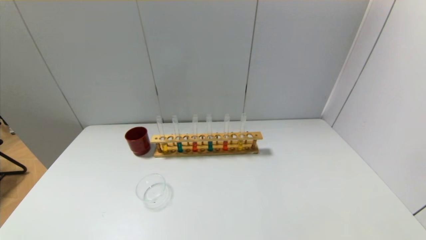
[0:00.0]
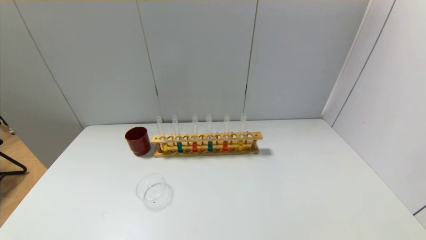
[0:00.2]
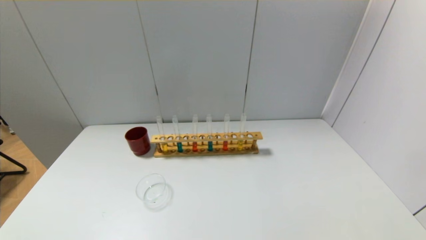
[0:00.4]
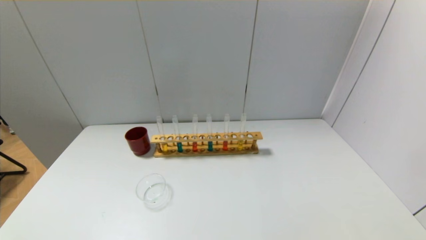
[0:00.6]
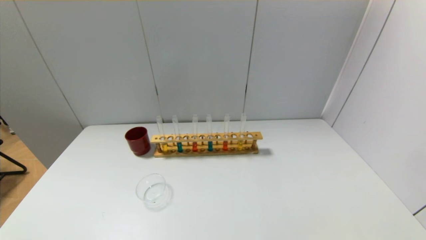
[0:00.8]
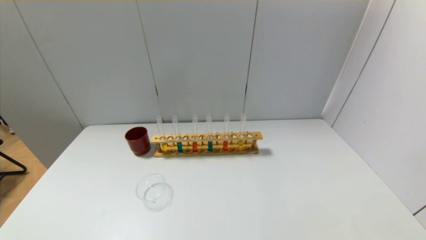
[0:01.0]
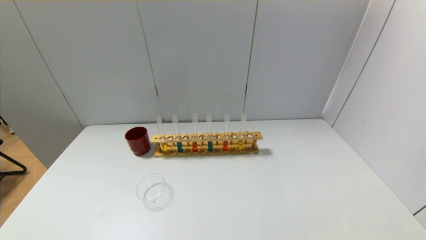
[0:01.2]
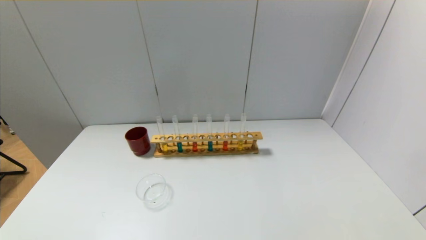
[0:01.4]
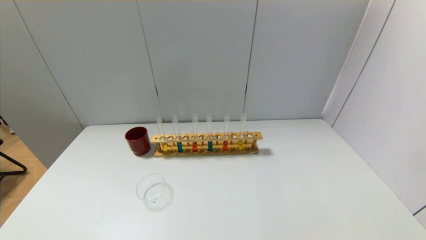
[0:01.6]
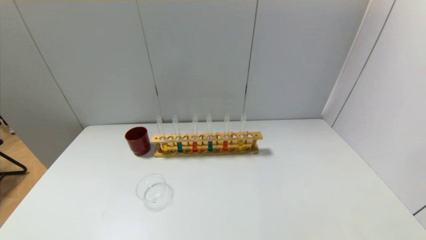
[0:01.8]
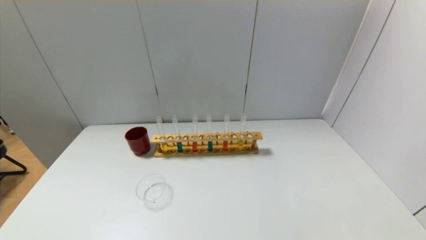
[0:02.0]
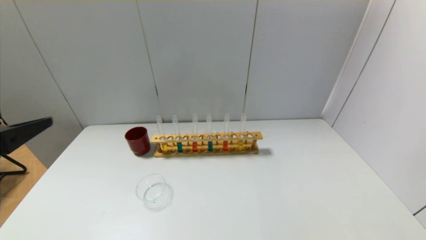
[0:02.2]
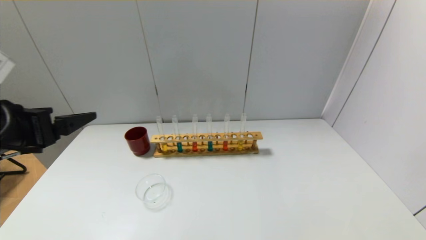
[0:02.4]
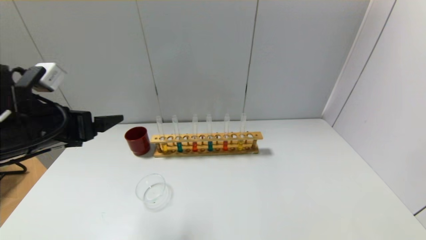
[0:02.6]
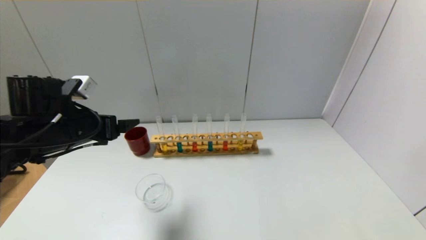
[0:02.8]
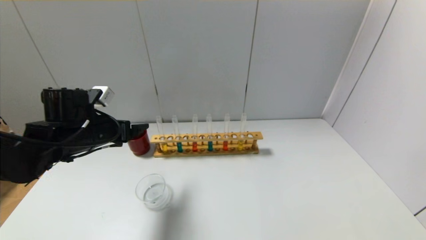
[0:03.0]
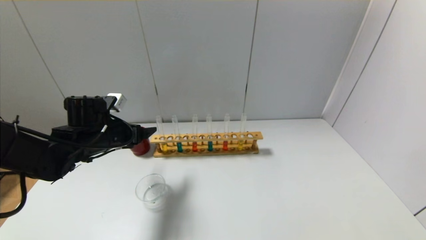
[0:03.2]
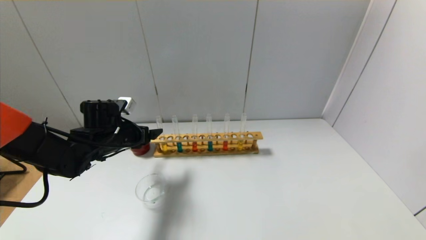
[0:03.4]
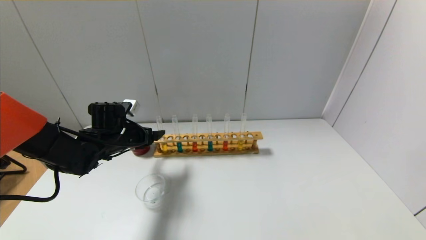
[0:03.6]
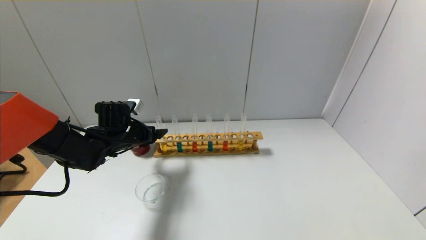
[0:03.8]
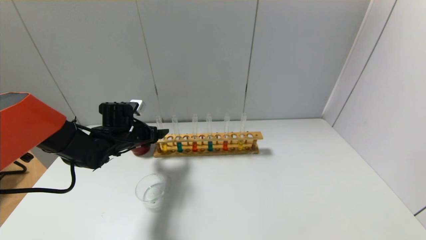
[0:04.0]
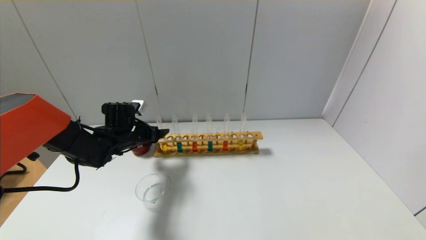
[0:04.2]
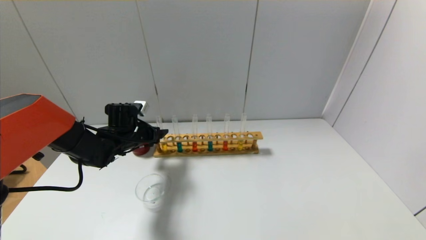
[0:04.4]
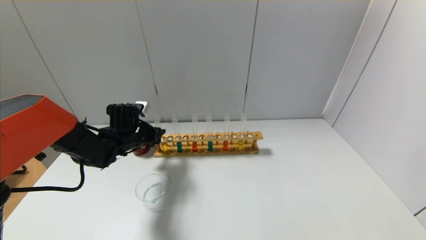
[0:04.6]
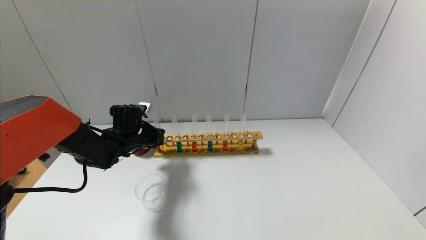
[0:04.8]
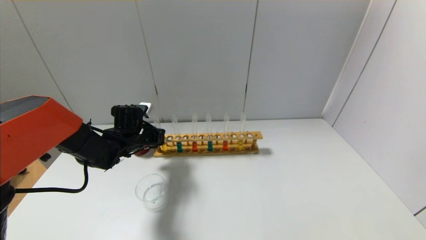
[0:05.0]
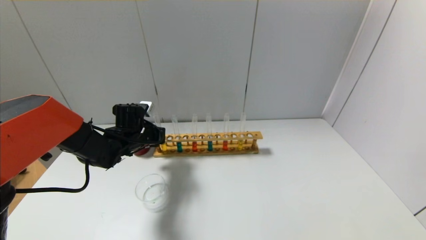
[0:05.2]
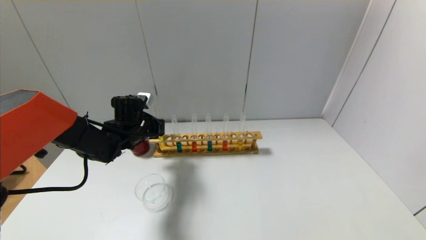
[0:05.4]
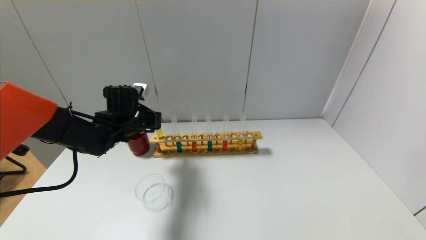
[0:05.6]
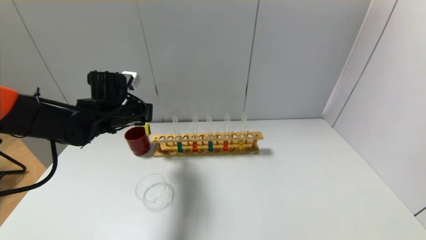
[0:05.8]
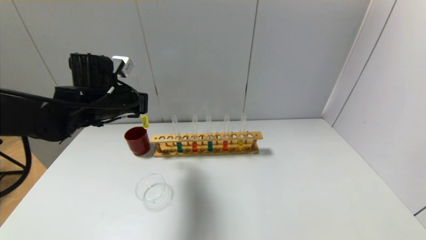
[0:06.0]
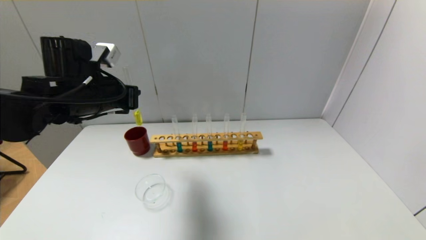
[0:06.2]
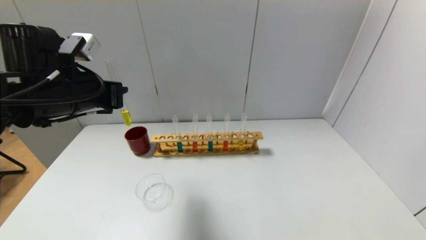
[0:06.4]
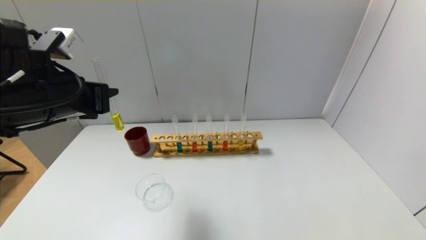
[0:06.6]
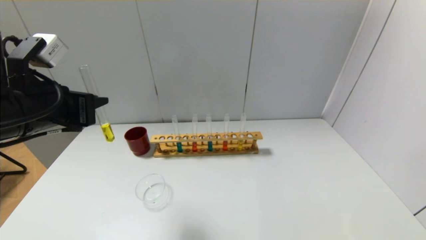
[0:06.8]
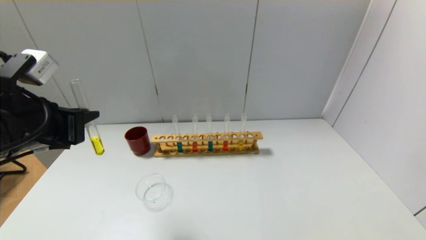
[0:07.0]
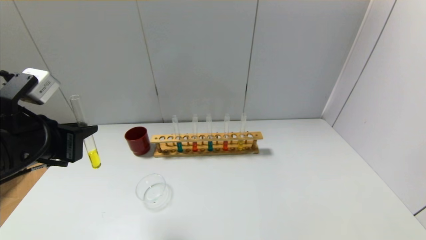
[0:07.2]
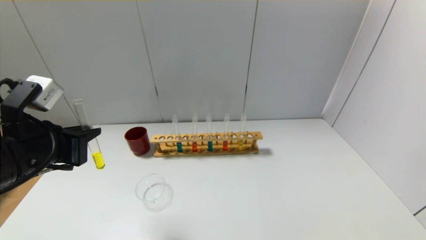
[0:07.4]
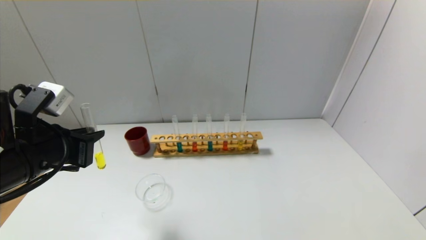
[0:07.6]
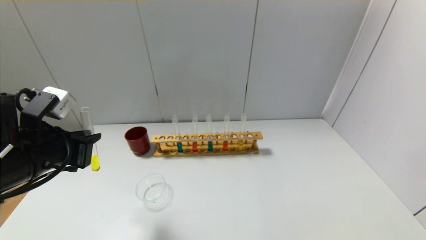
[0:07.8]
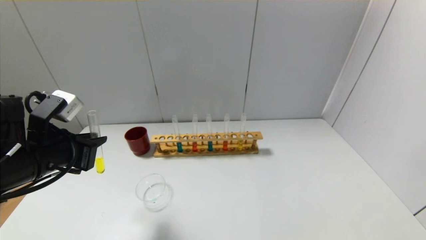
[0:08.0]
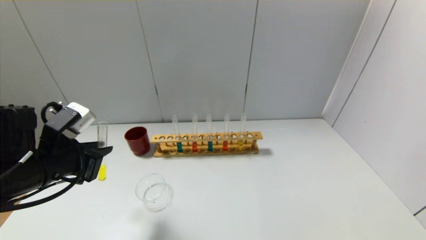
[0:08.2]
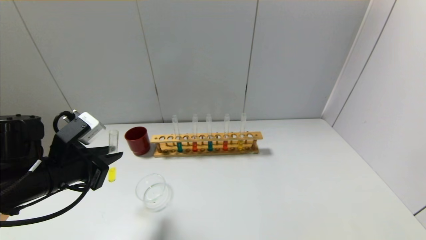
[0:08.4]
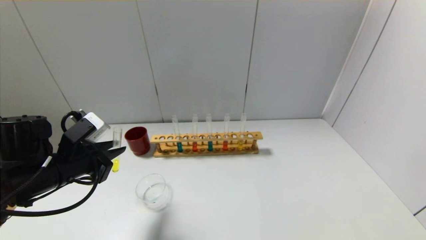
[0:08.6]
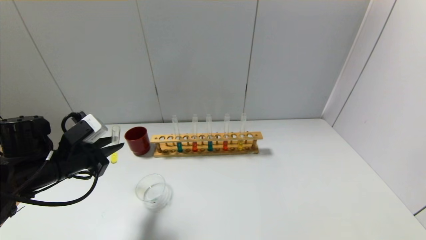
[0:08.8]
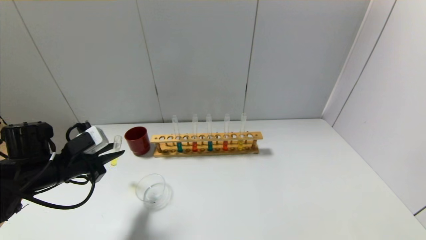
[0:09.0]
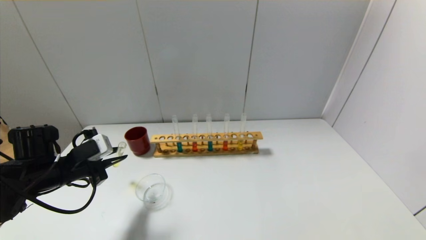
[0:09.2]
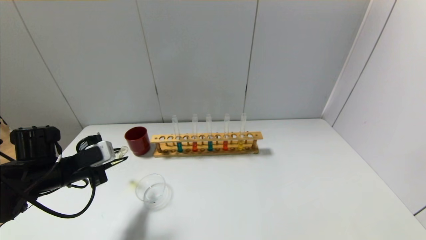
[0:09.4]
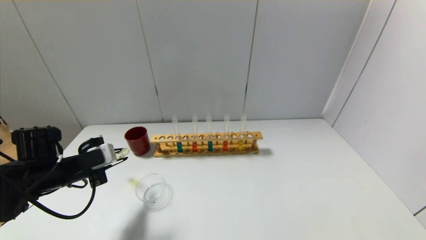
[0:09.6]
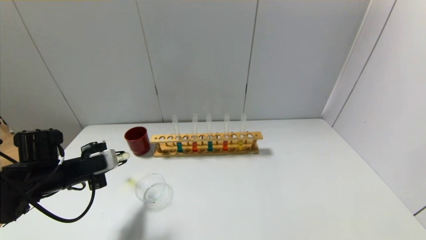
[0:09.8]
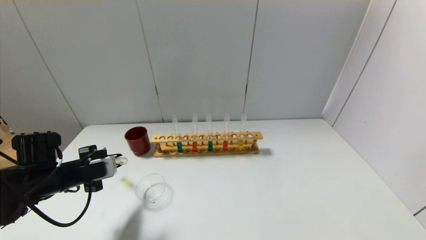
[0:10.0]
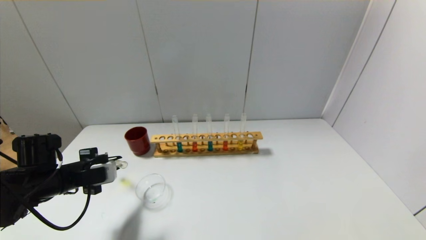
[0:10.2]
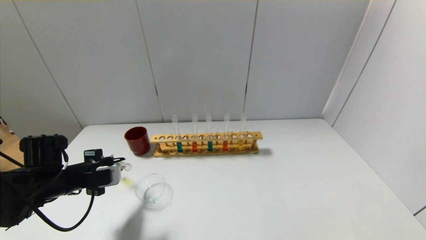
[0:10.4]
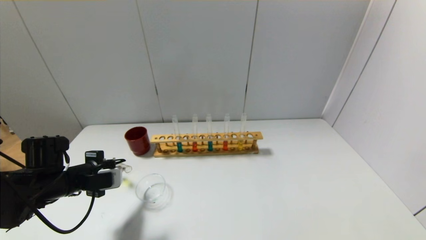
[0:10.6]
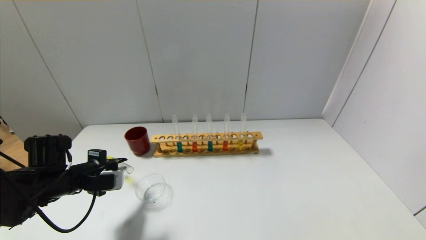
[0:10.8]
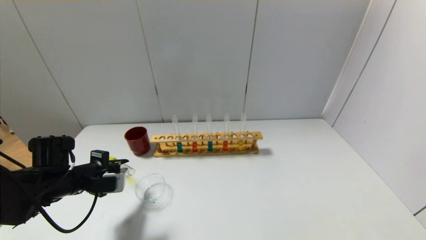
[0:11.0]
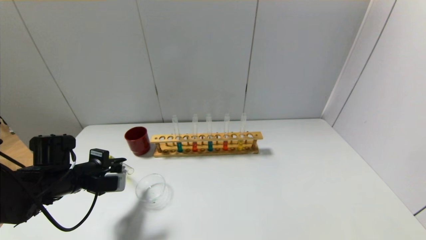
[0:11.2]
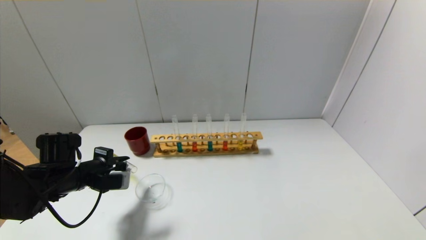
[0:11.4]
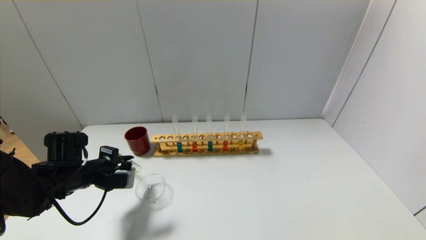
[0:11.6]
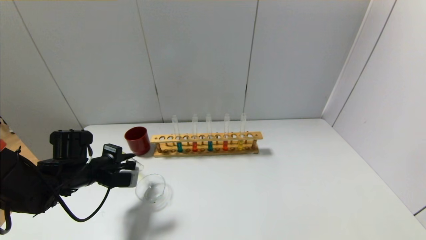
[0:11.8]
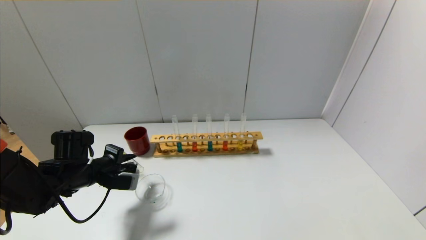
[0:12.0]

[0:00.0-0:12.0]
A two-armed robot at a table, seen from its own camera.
Step, 0.0 to 4.8 s: Grasp the yellow reagent with the left gripper.
1.6 to 3.0 s: The left gripper shifts roughly 35 cm forward.
3.0 to 4.4 s: The left gripper goes about 10 cm forward and downward.
4.4 to 6.0 s: The left gripper heads upward and backward, covering some 15 cm, and closes its fingers.
6.0 to 7.6 s: The left gripper is displaced backward by roughly 15 cm.
7.6 to 9.0 s: The left gripper is displaced downward, forward and to the left by some 15 cm.

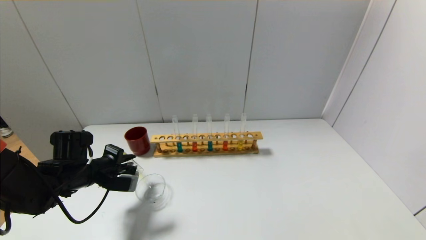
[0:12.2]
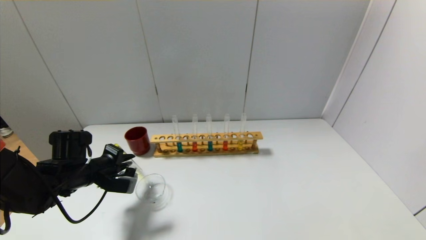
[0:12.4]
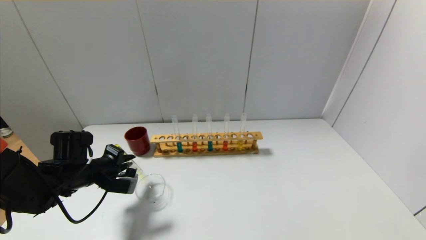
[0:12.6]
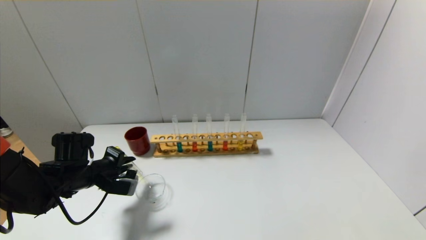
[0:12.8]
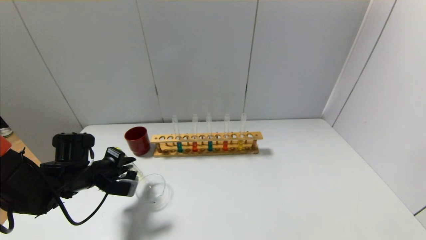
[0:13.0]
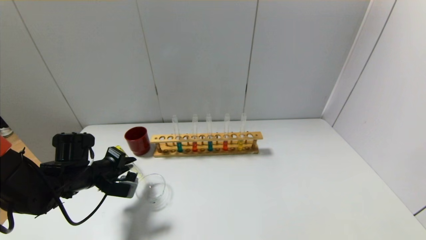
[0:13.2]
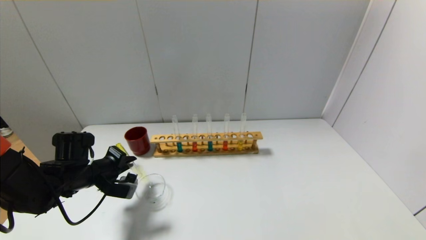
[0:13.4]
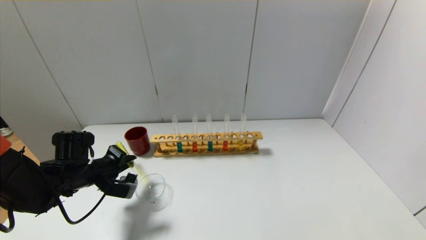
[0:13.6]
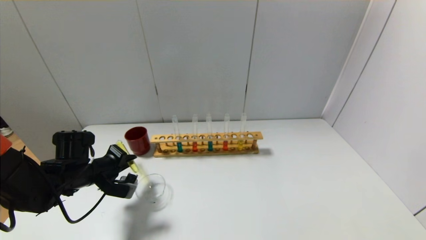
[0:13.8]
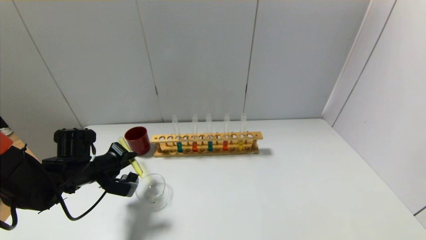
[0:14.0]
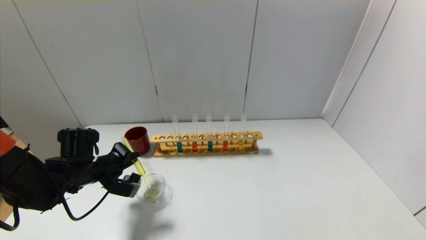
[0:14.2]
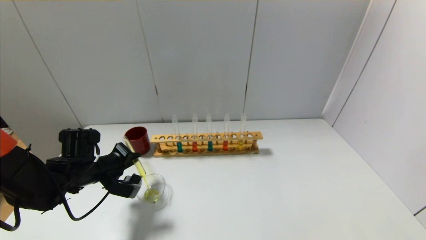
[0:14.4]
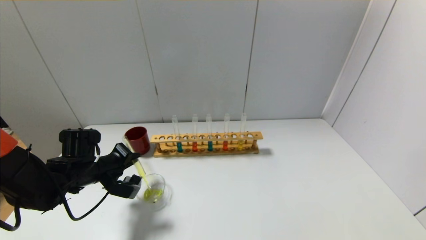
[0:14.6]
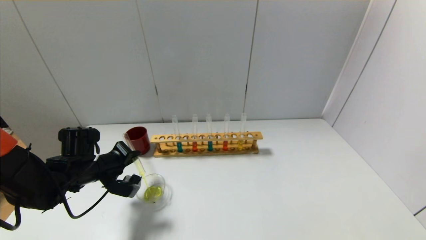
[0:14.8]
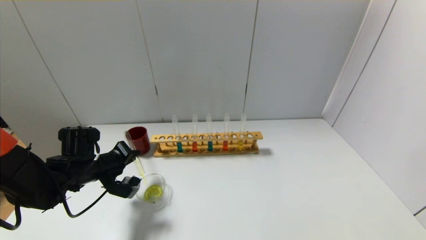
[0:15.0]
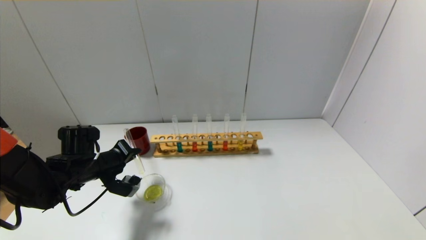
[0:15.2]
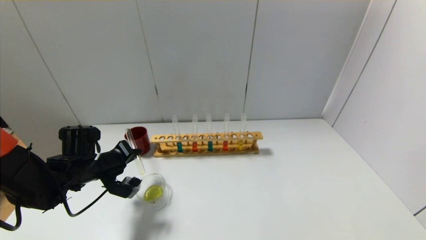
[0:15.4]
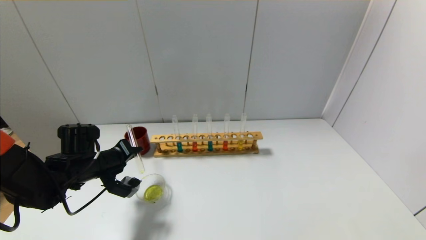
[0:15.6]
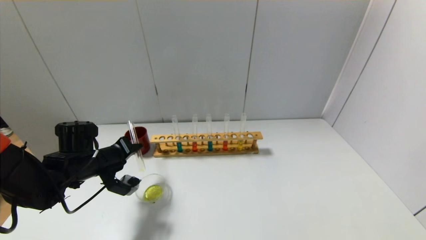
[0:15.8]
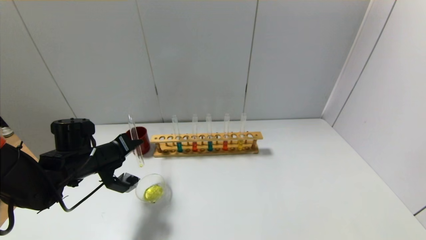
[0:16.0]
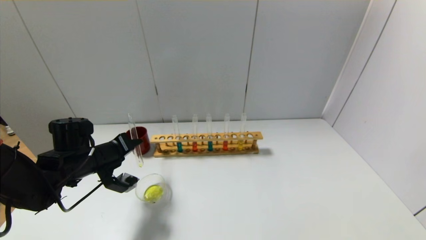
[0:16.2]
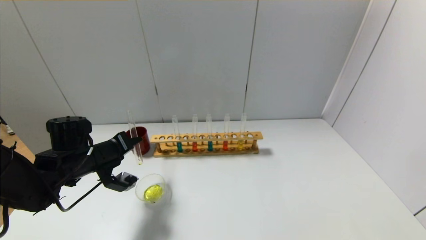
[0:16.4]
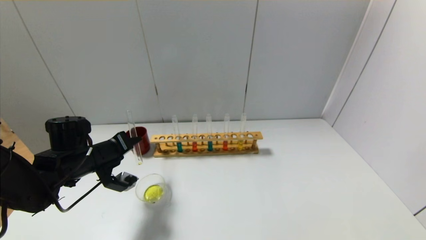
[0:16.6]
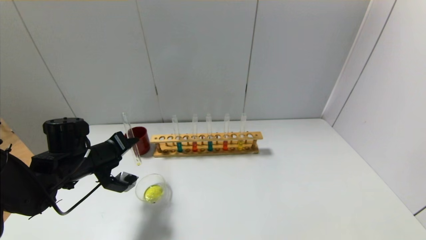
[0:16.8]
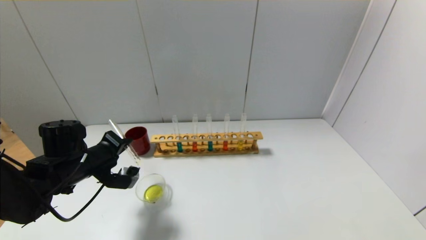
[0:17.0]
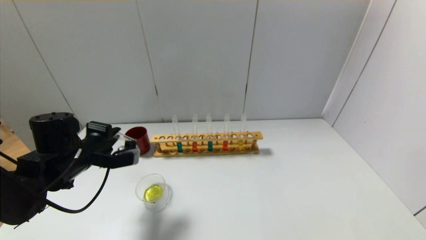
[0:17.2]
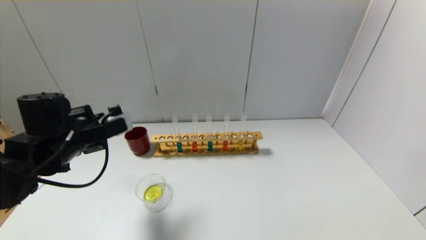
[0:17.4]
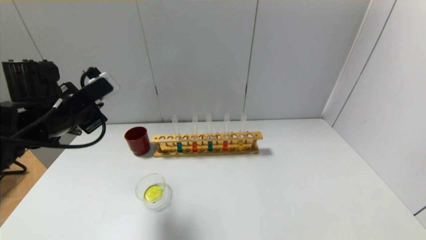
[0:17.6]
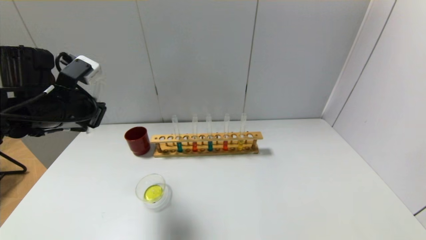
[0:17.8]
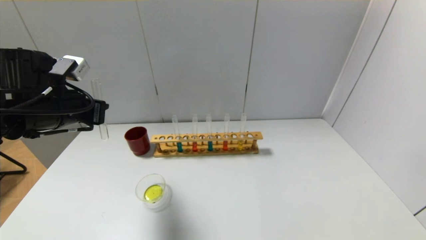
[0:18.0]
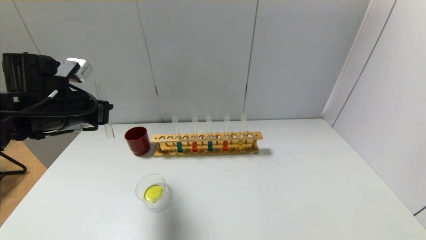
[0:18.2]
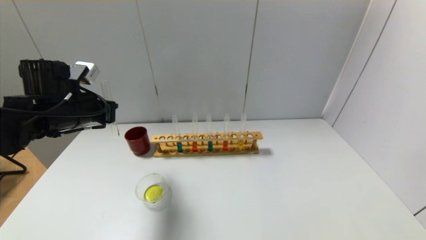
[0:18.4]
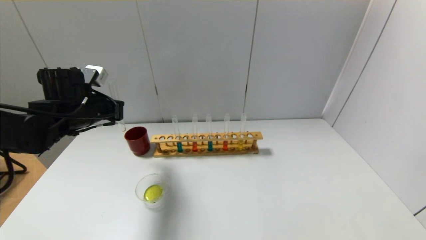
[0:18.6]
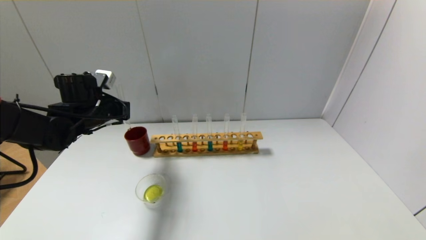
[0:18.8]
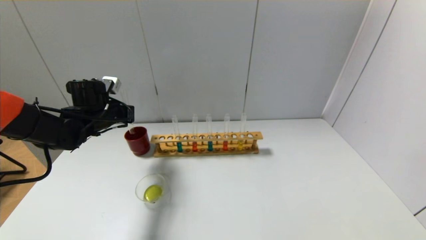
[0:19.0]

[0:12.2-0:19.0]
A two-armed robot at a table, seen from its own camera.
Step, 12.2 to 16.8 s: Pour the yellow reagent into the graduated cylinder with the left gripper.
12.2 to 13.6 s: There are only small adjustments of the grippers.
13.6 to 15.0 s: The grippers make only small movements.
15.0 to 16.2 s: The grippers move only a little.
16.2 to 17.6 s: The left gripper shifts approximately 10 cm upward.
17.6 to 19.0 s: The left gripper is displaced forward and downward by about 15 cm.
